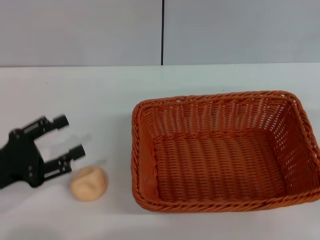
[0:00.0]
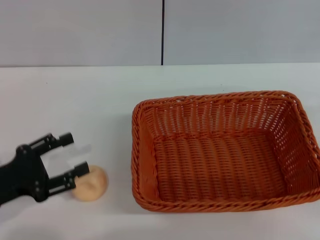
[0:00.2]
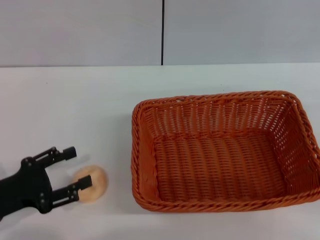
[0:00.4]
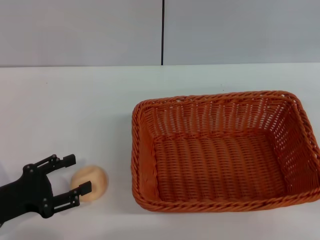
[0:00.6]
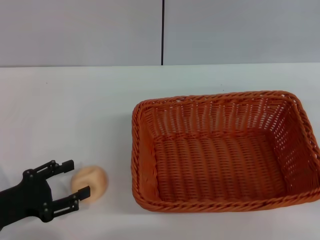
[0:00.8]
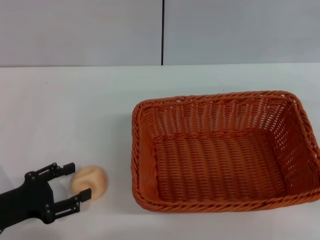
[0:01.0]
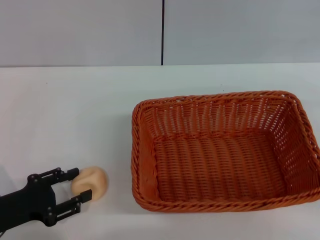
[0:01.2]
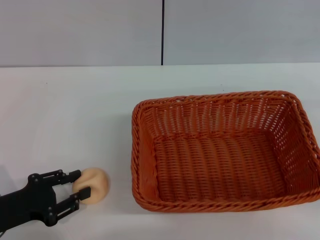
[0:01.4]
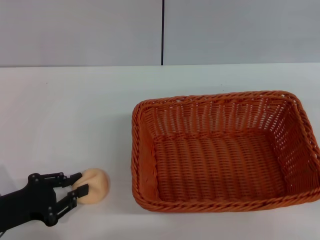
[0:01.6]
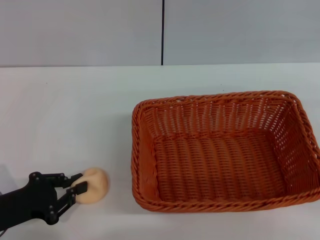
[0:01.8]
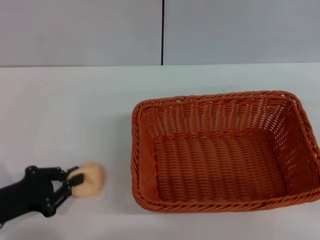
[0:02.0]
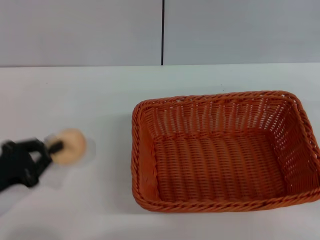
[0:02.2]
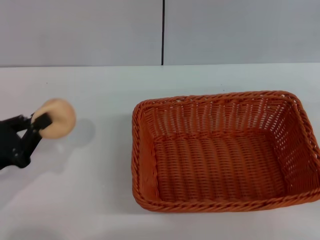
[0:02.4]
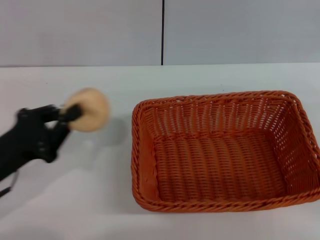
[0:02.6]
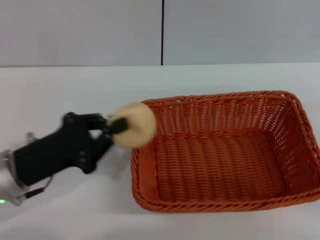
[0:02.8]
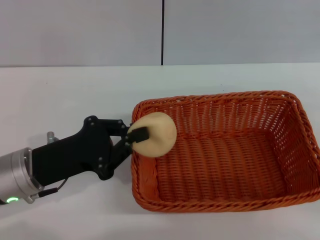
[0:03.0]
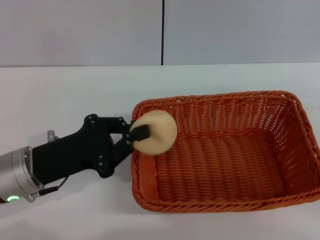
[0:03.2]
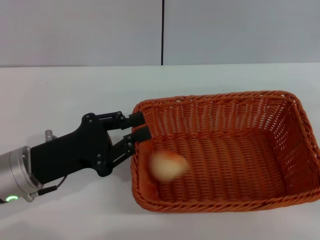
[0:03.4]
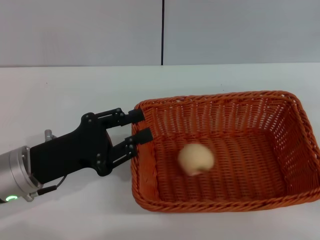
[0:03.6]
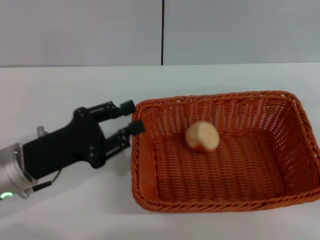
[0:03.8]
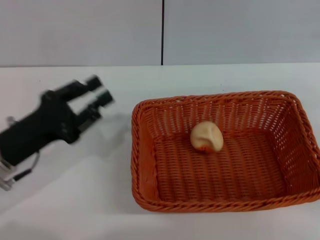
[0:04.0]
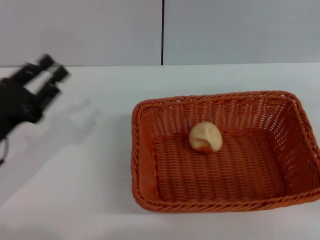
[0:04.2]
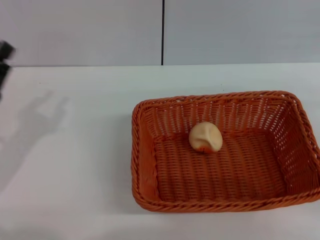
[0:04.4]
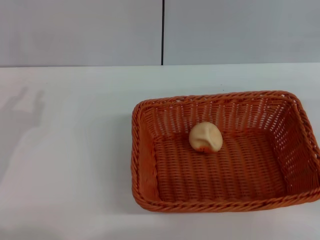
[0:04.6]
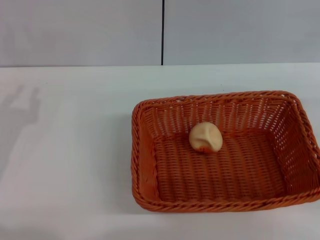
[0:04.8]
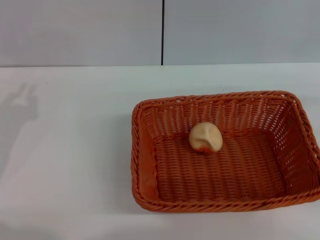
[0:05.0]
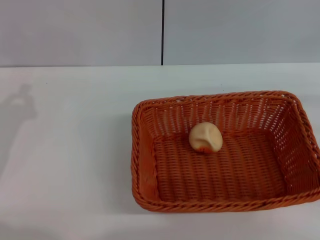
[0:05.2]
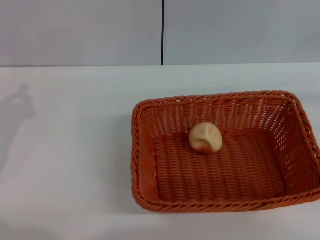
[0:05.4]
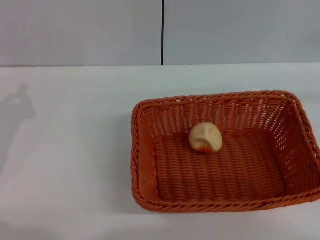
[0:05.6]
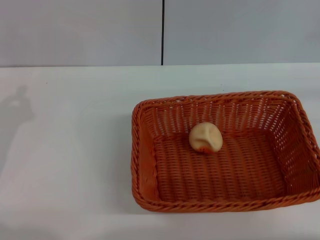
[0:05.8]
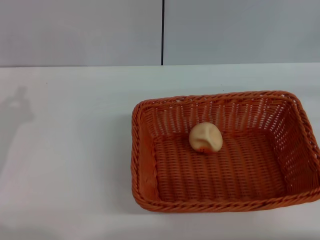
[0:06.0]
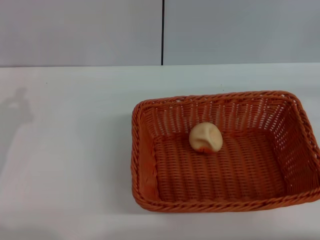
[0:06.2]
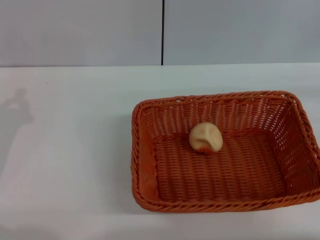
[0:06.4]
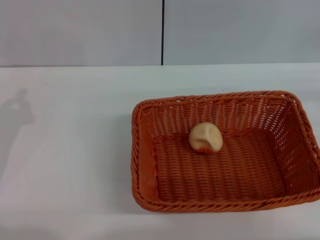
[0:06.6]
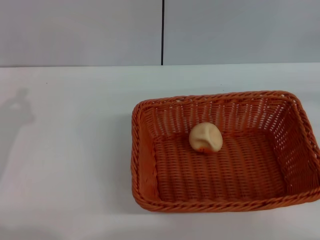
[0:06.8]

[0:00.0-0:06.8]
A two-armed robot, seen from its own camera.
Step, 0:00.0 to 0:02.0: Pick up the egg yolk pastry with the left gripper.
Step, 0:02.2 to 0:03.6: Place the egg yolk pastry into the basket with the left gripper.
0:00.0 to 0:01.4: The left gripper ends up roughly 5 cm from where it was.
0:01.4 to 0:02.8: The left gripper is displaced to the right by roughly 5 cm, and closes.
0:02.8 to 0:04.0: The left gripper opens up.
0:04.0 to 0:05.4: The left gripper shifts about 5 cm to the left, and closes.

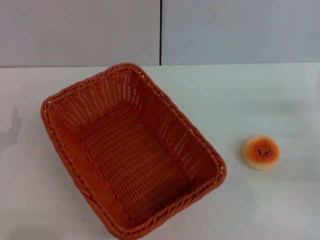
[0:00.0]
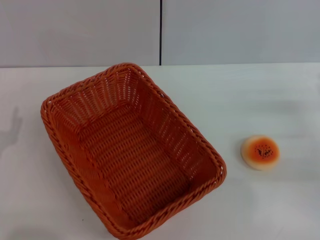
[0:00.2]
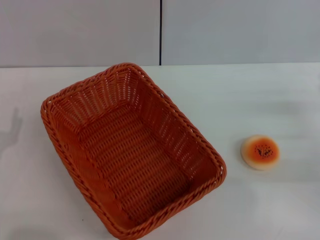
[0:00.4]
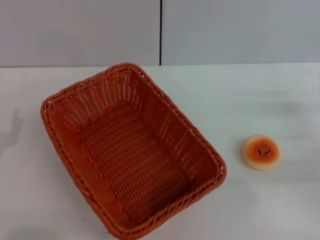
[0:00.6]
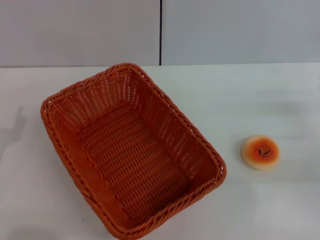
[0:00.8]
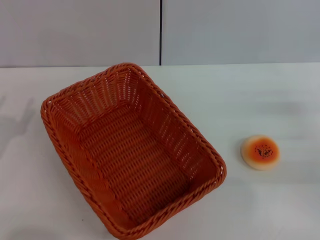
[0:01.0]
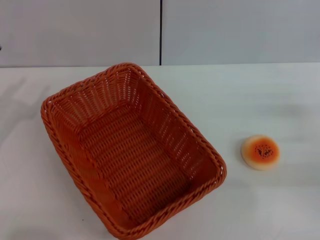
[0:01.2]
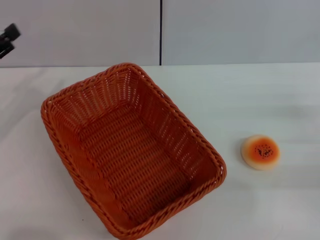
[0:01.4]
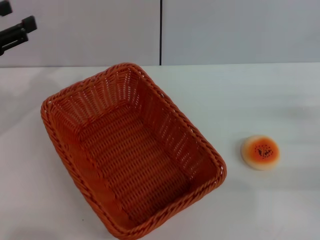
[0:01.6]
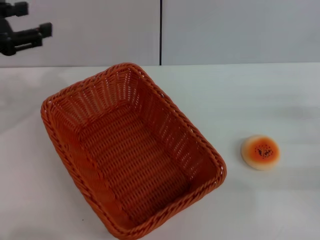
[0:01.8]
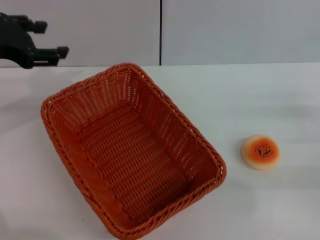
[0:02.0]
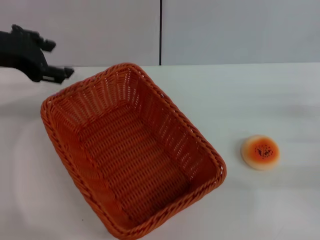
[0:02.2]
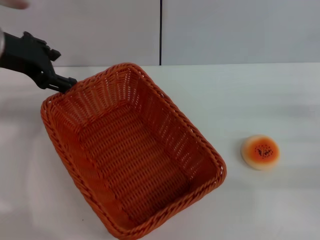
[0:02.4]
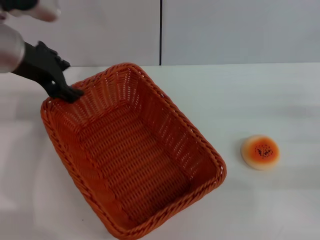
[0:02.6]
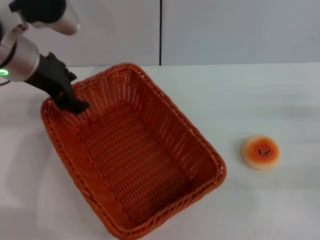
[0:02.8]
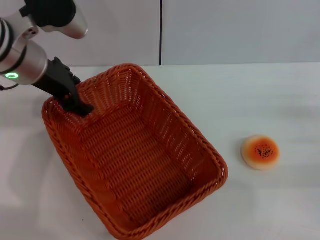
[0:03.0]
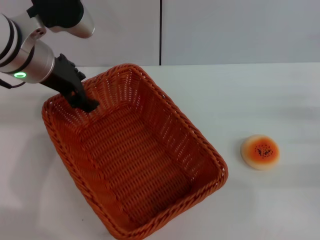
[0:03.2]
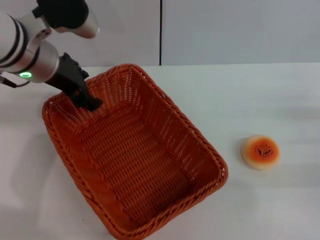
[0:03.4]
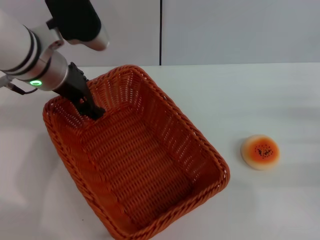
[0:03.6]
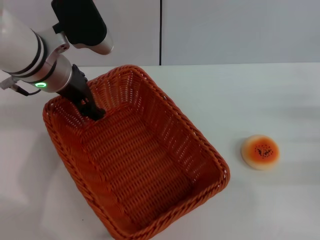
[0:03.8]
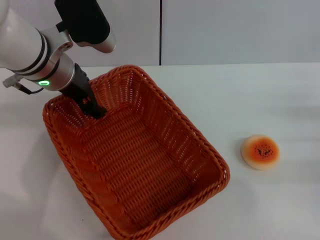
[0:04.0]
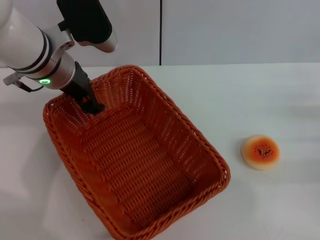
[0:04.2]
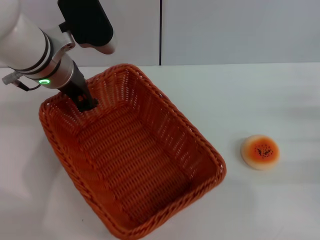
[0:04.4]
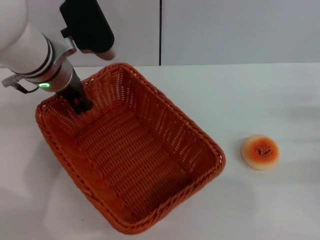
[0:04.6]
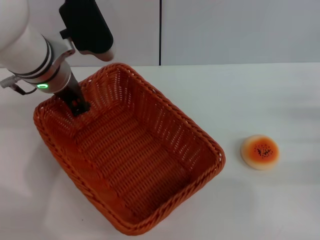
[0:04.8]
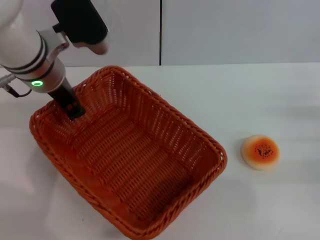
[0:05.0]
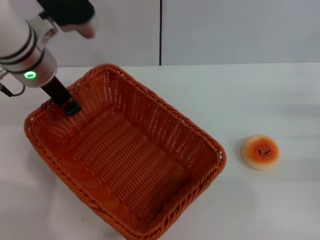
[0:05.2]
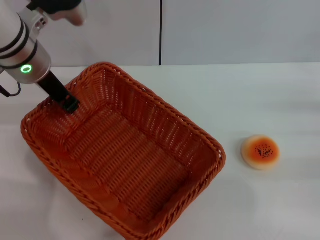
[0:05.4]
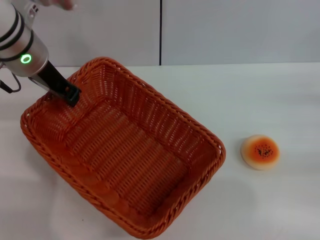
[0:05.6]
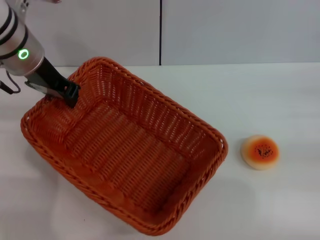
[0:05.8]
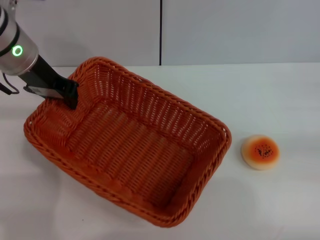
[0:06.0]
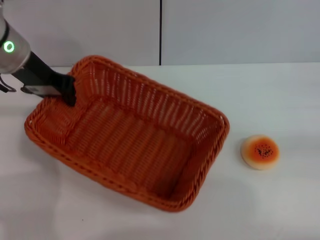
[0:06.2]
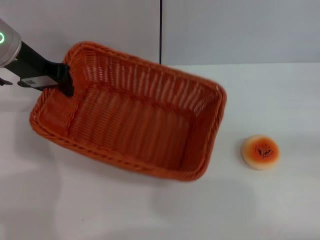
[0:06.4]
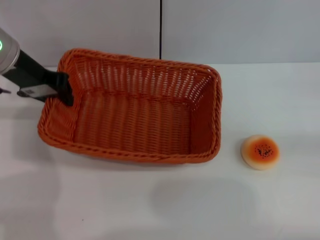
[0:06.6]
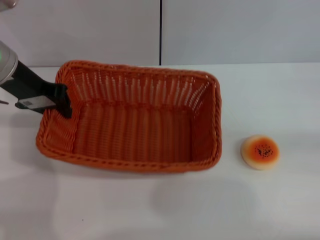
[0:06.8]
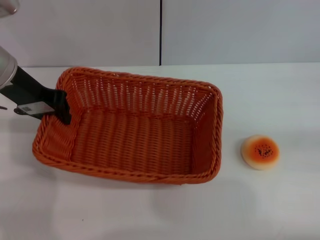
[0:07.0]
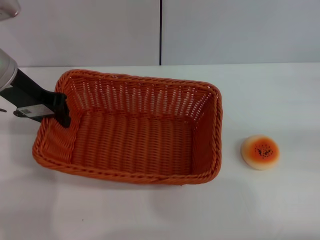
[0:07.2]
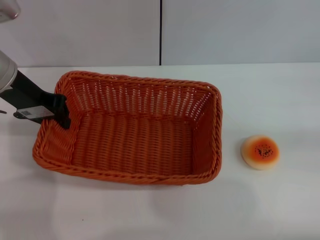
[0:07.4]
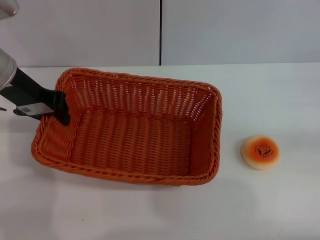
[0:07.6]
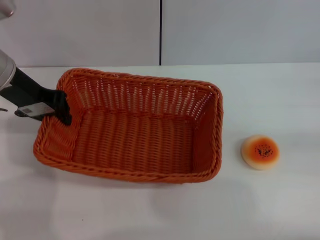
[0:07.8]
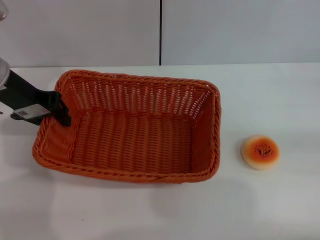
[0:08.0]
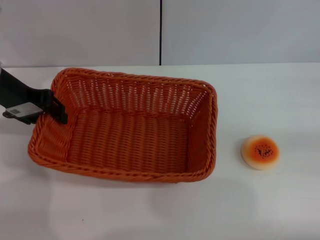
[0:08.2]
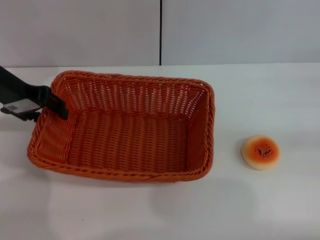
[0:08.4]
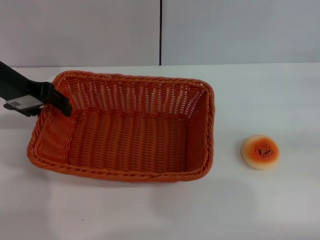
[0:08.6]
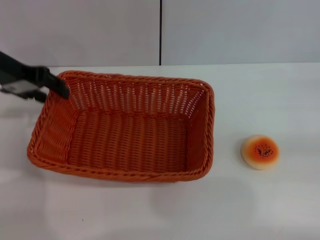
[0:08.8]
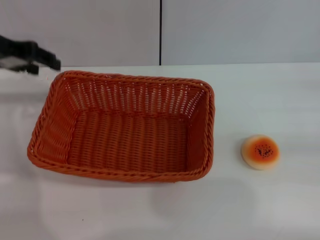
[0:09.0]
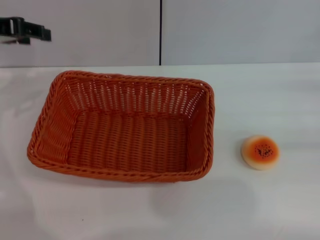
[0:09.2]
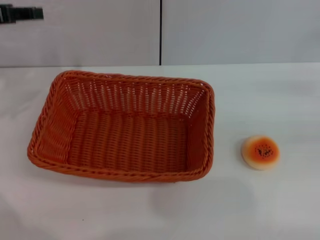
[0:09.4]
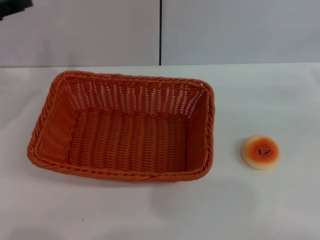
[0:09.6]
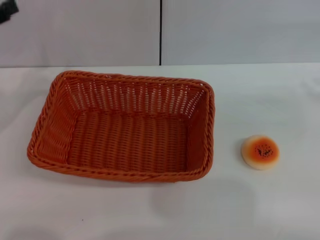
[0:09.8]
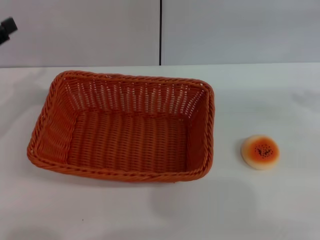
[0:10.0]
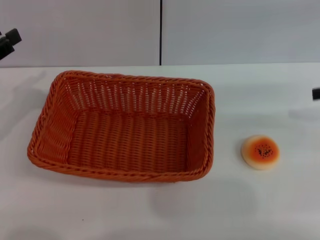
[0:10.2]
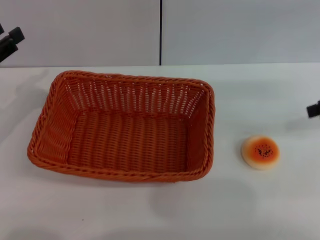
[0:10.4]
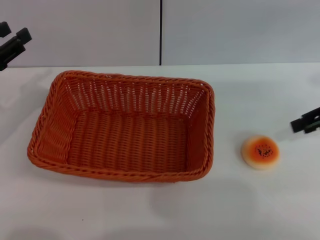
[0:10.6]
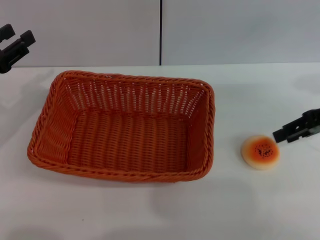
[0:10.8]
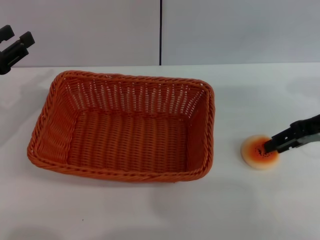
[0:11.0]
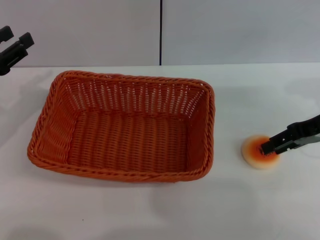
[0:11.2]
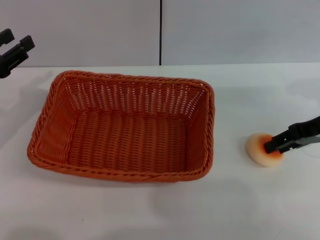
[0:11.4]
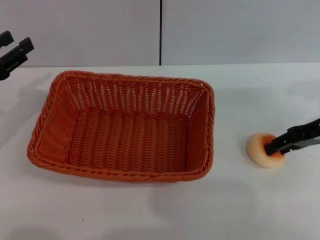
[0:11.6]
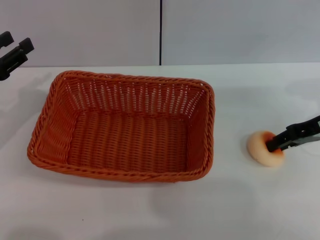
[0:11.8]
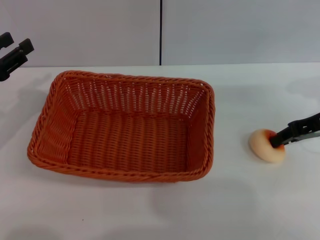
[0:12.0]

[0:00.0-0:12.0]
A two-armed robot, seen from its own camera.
Step, 0:00.0 to 0:08.8: Move the basket to the center of view with the left gripper.
0:00.0 to 0:01.6: The left gripper moves upward and forward, approximately 20 cm.
0:01.6 to 0:03.0: The left gripper shifts roughly 15 cm to the right.
0:03.0 to 0:04.4: The left gripper closes its fingers.
0:04.4 to 0:06.0: The right gripper travels to the right and upward by some 10 cm; the left gripper moves roughly 5 cm, and closes its fingers.
0:06.0 to 0:07.6: The grippers make only small movements.
0:07.6 to 0:09.0: The left gripper changes place by roughly 5 cm, and opens.
0:09.0 to 0:10.4: The left gripper heads downward, backward and to the left, covering some 15 cm.
0:10.4 to 0:12.0: The right gripper shifts roughly 10 cm downward and to the left.

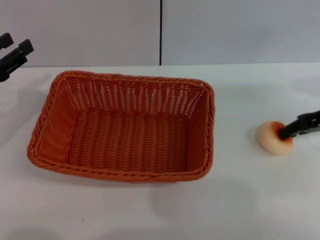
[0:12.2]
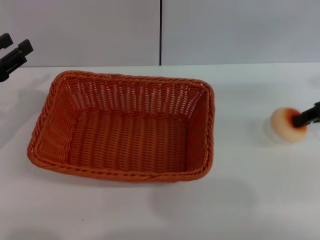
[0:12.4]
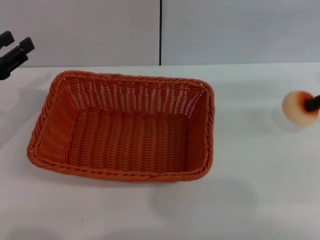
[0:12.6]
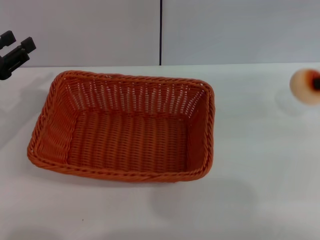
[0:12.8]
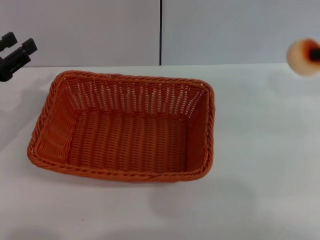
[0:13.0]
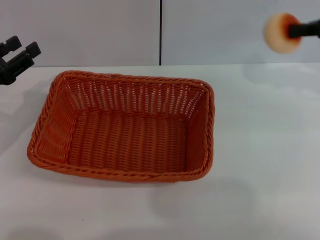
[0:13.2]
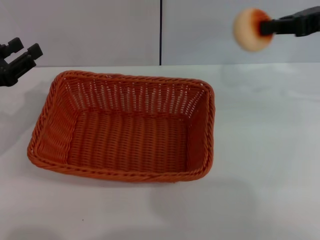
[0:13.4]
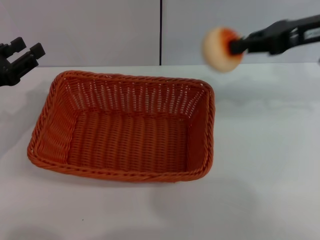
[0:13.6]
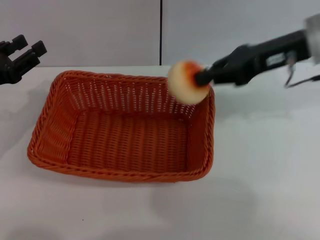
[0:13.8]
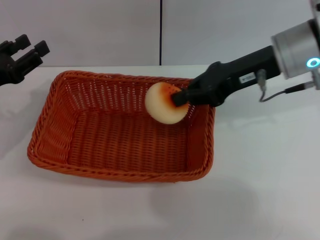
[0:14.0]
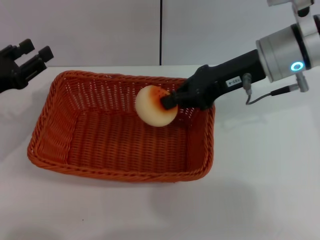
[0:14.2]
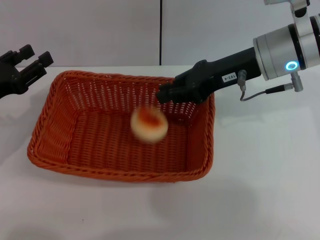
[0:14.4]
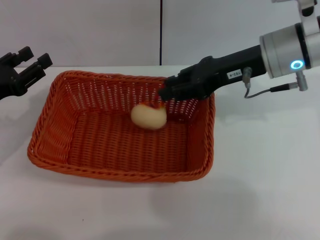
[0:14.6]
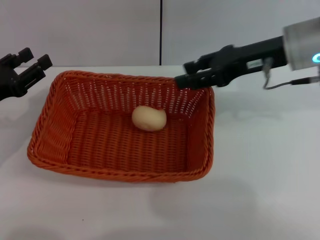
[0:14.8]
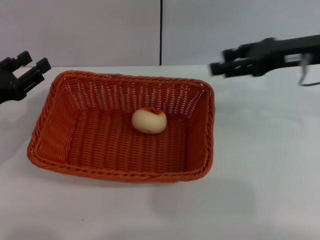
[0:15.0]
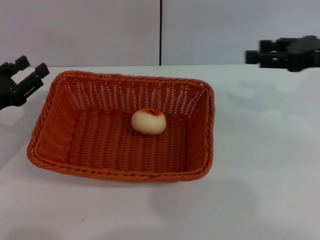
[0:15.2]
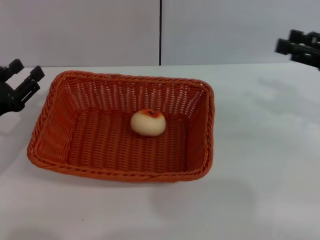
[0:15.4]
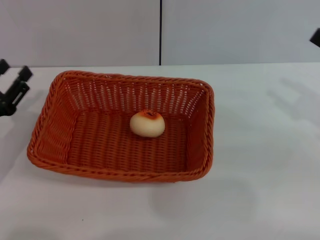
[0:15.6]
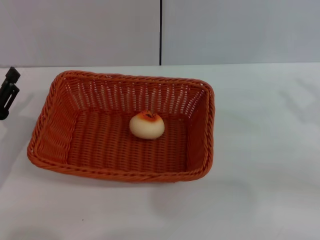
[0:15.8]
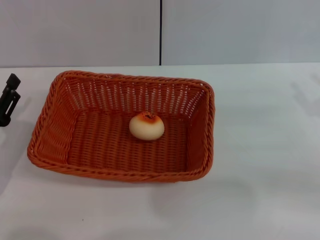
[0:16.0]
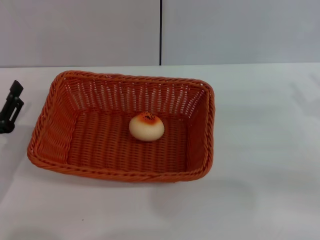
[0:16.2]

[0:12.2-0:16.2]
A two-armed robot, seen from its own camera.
Step, 0:12.4 to 0:14.8: Place the egg yolk pastry into the basket with the right gripper.
0:12.2 to 0:13.6: The right gripper is displaced upward and to the left by roughly 10 cm.
0:13.6 to 0:14.8: The right gripper moves to the left, some 5 cm, and opens its fingers.
0:14.8 to 0:16.2: The left gripper goes roughly 10 cm backward and downward, while the right gripper goes approximately 20 cm to the right, backward and downward, and opens.
